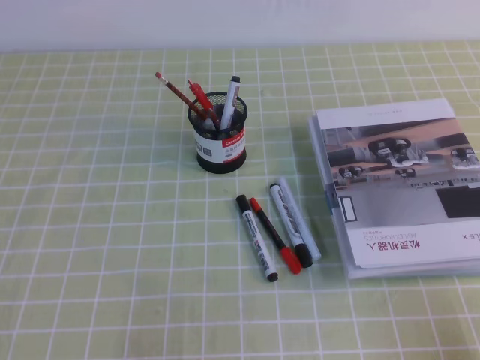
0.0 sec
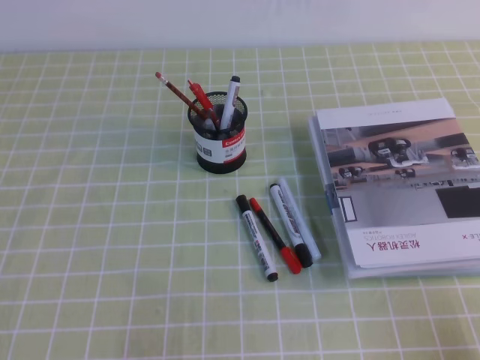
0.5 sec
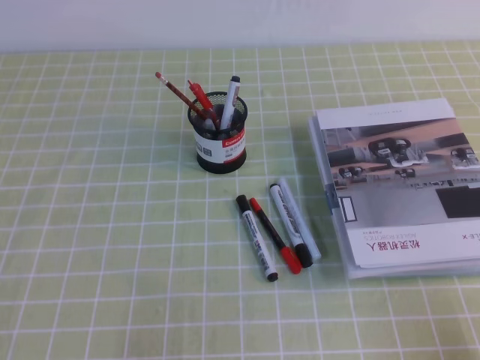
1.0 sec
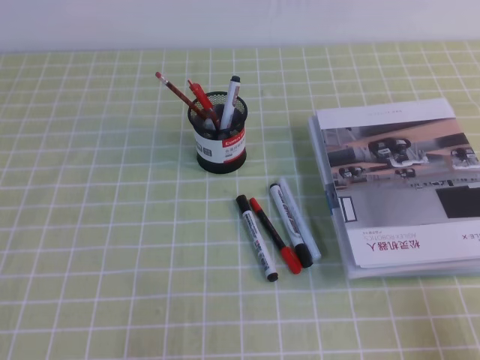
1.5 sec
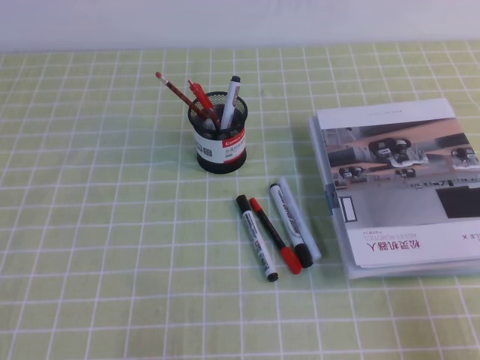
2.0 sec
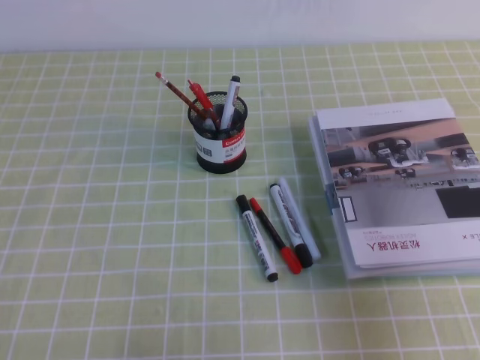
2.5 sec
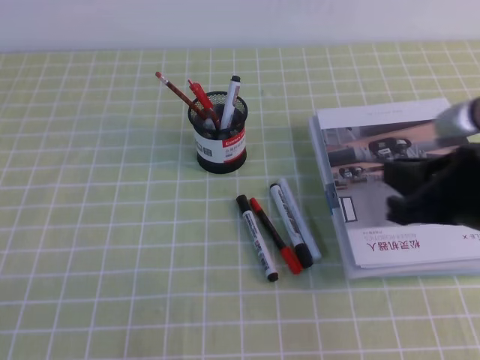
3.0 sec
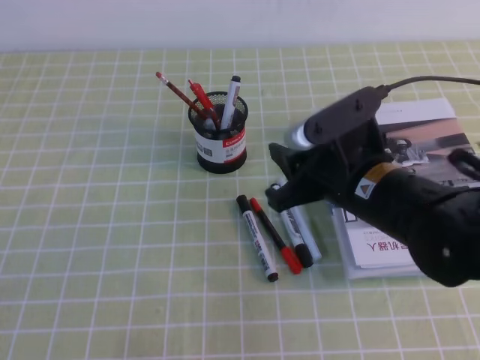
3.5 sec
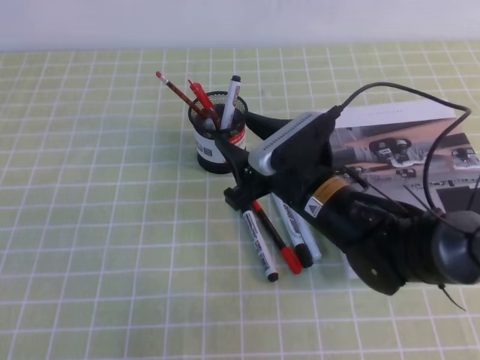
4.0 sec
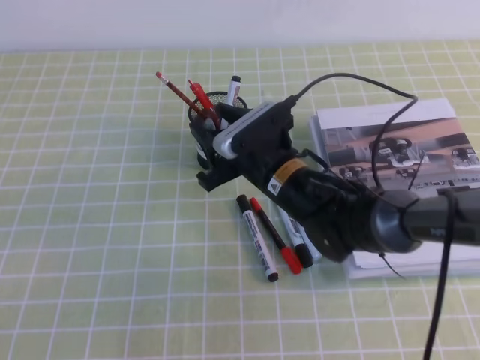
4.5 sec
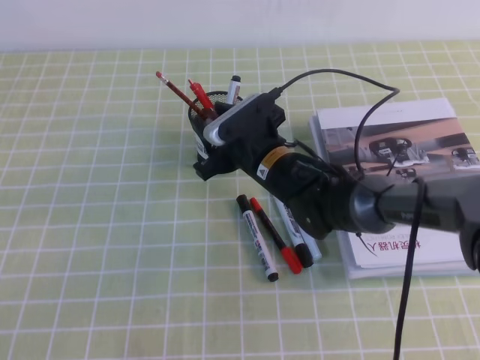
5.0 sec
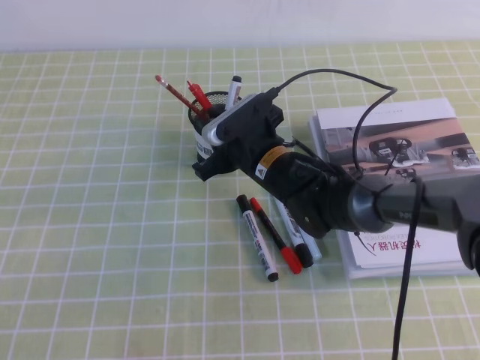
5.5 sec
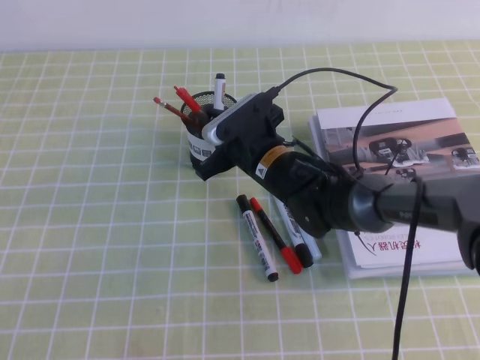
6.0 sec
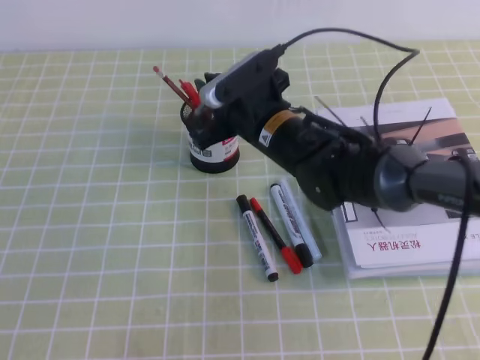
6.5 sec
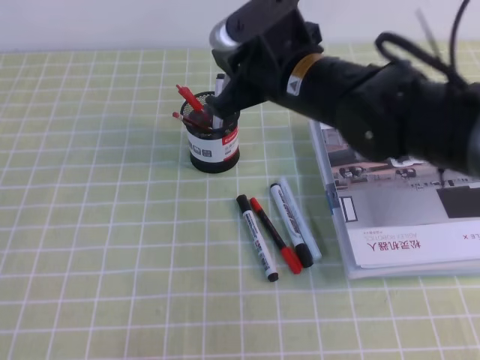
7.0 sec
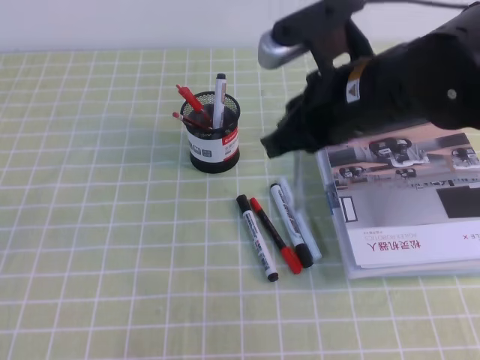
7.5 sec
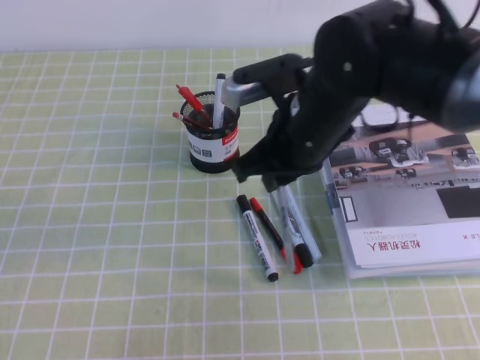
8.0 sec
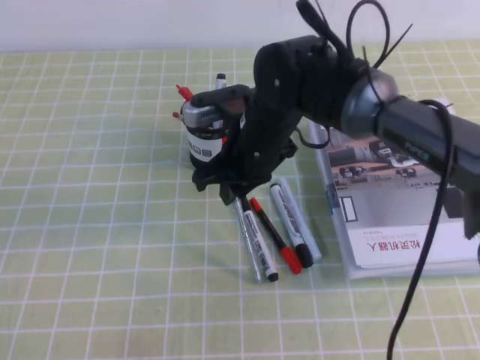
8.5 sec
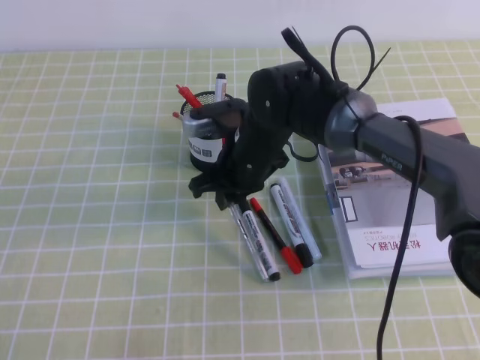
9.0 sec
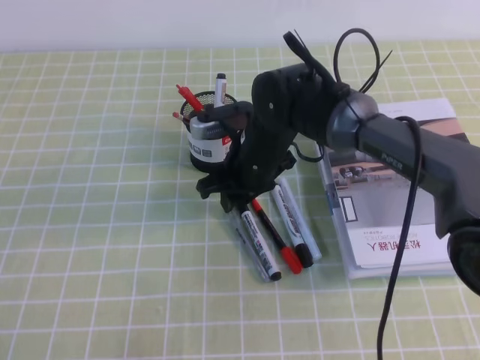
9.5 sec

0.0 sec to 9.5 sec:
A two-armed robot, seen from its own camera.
2.0 sec to 4.0 sec: The right gripper heads to the left and forward, covering some 35 cm, and opens.
4.0 sec to 5.5 sec: The right gripper goes about 10 cm forward and to the left, and closes.
5.5 sec to 7.5 sec: The right gripper goes about 20 cm upward, backward and to the right.
7.5 sec to 9.5 sec: The right gripper shifts about 20 cm downward, forward and to the left, and opens.

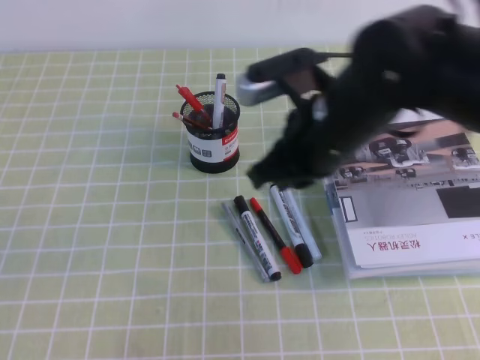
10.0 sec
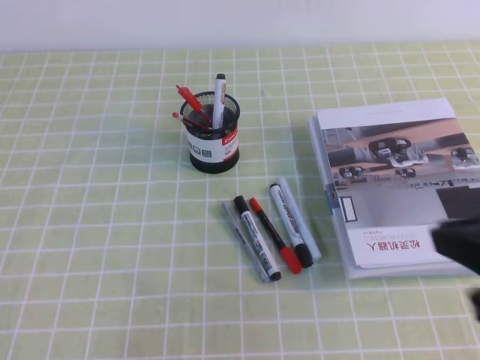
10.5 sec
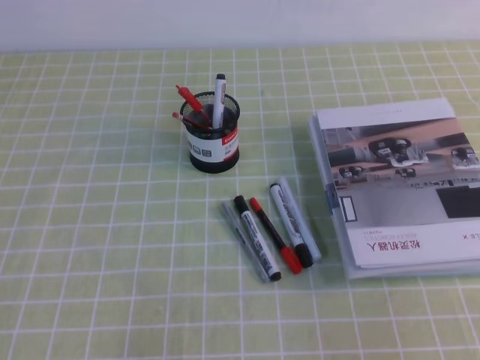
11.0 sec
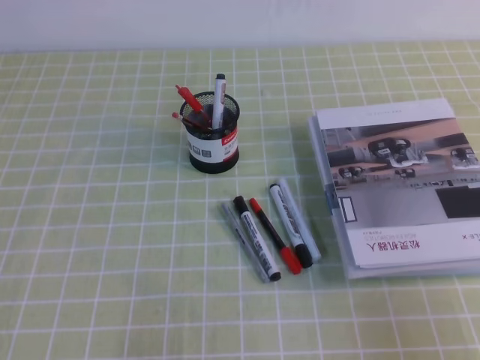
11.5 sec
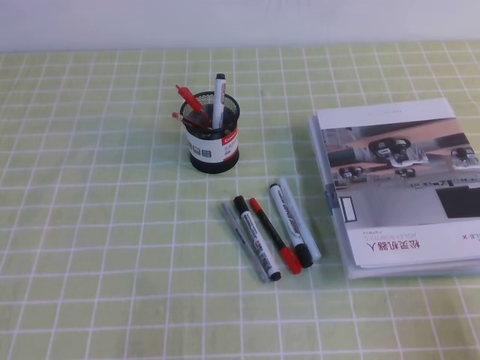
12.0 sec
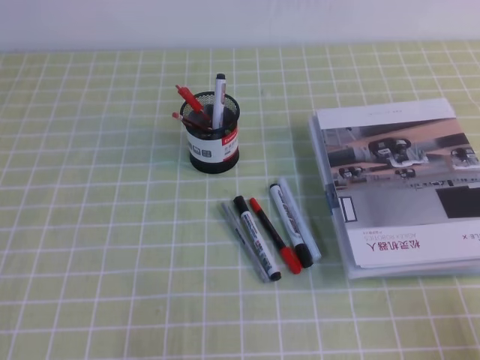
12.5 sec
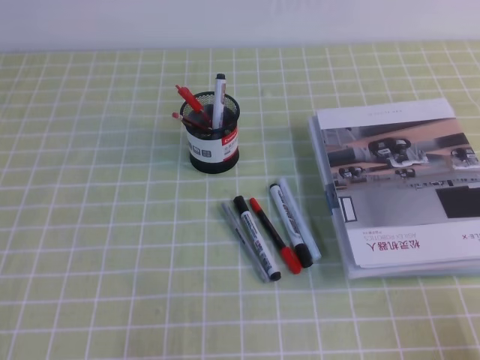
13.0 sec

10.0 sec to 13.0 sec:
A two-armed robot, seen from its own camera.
Step, 10.0 sec to 13.0 sec: Pick up the pen from the pen holder.
10.0 sec to 11.5 sec: The right gripper travels backward and to the right by roughly 30 cm.

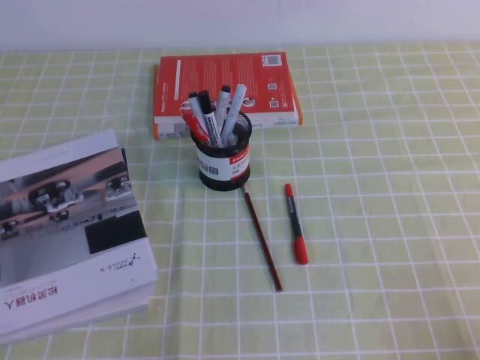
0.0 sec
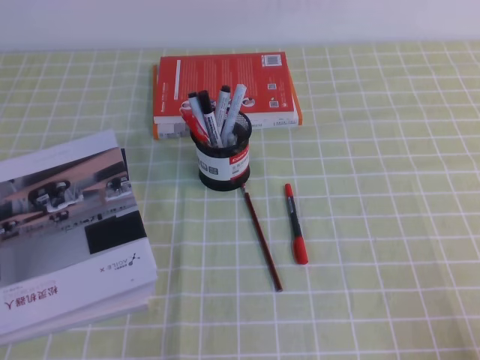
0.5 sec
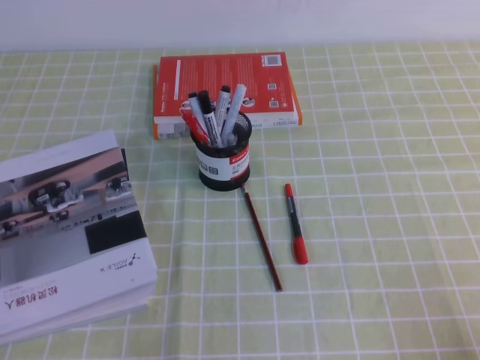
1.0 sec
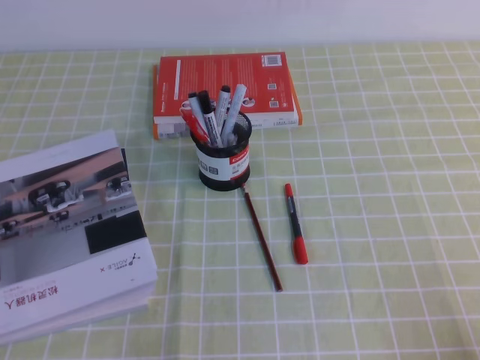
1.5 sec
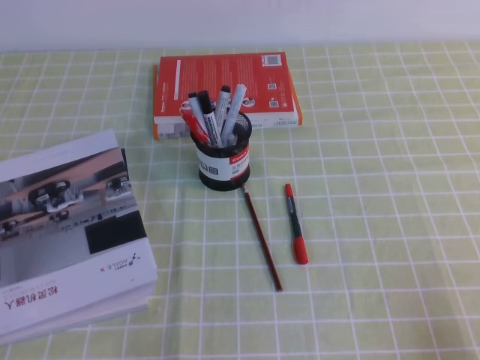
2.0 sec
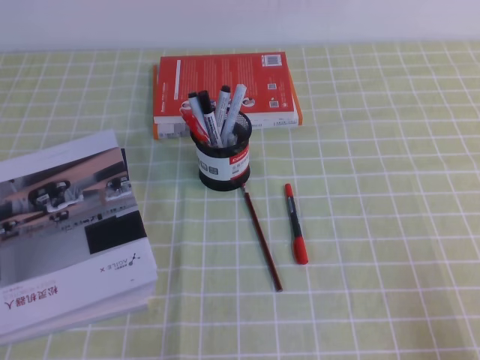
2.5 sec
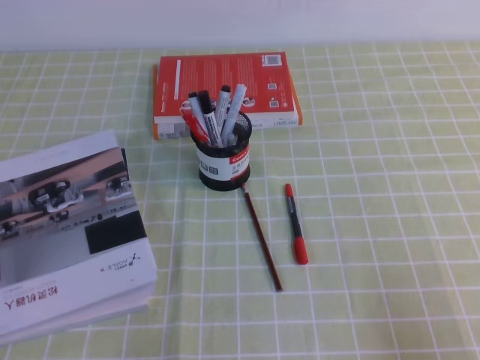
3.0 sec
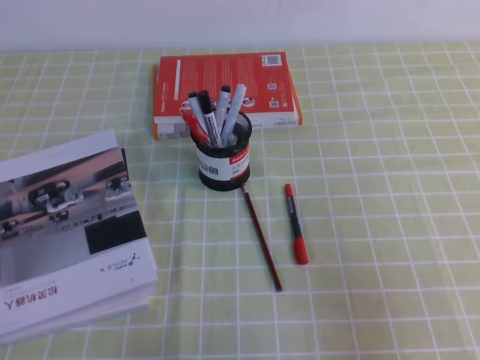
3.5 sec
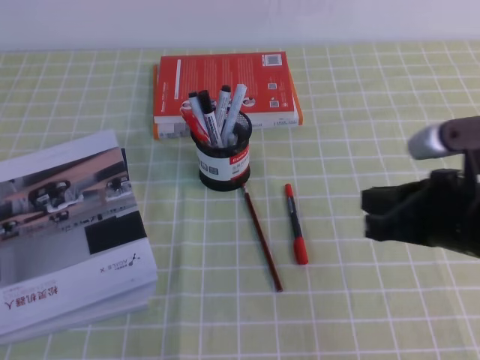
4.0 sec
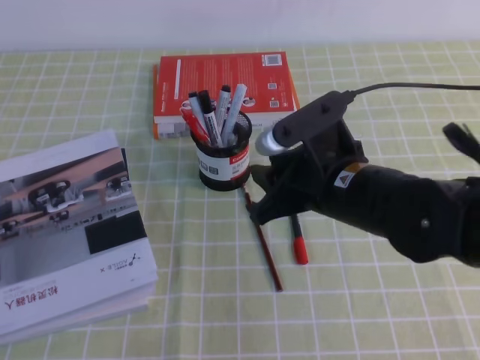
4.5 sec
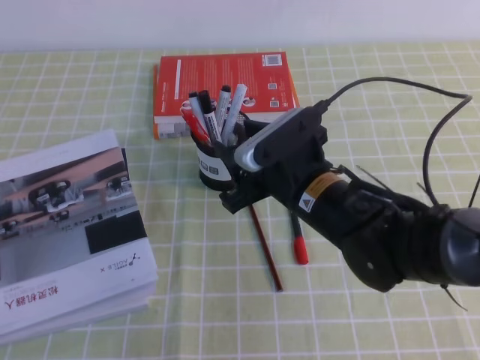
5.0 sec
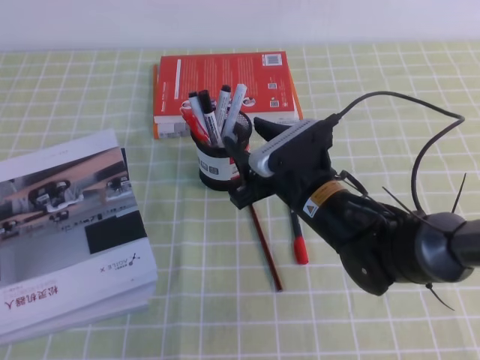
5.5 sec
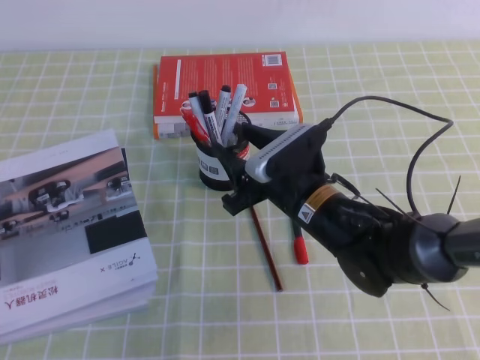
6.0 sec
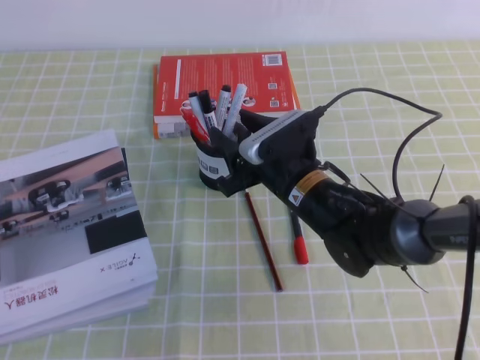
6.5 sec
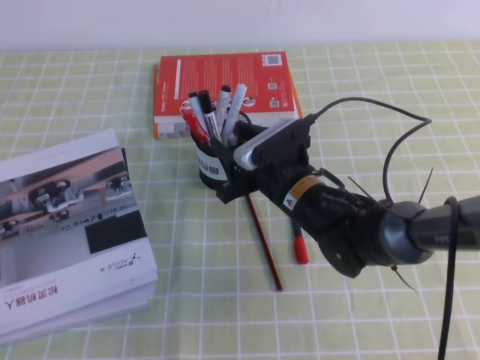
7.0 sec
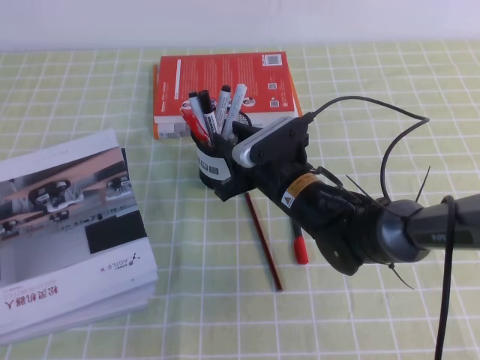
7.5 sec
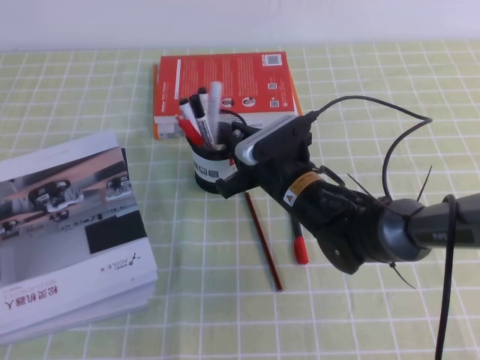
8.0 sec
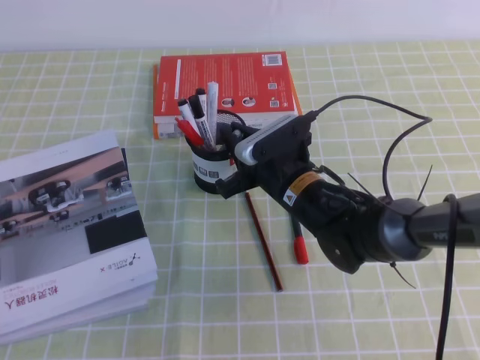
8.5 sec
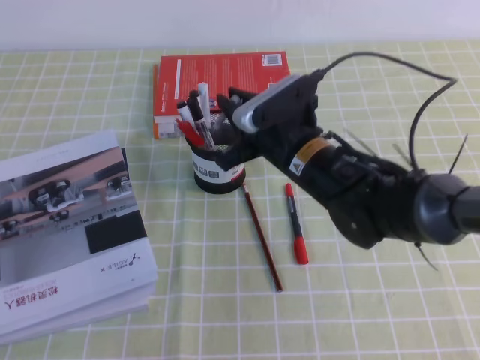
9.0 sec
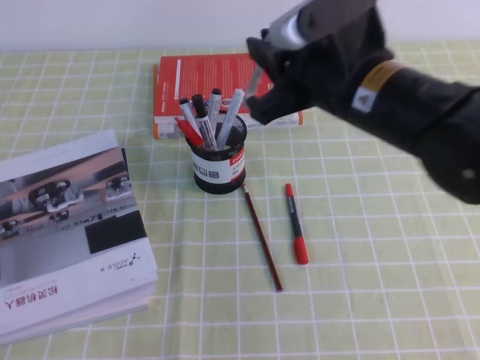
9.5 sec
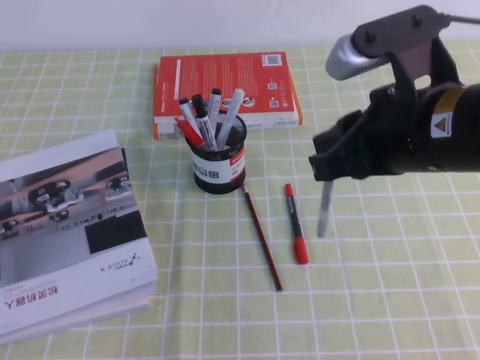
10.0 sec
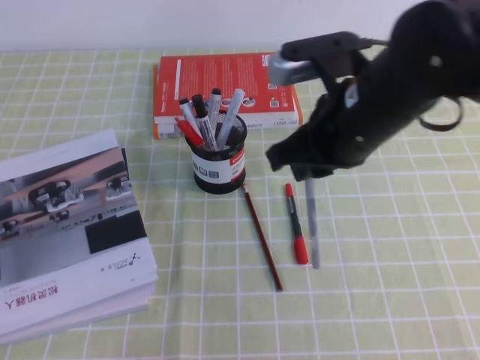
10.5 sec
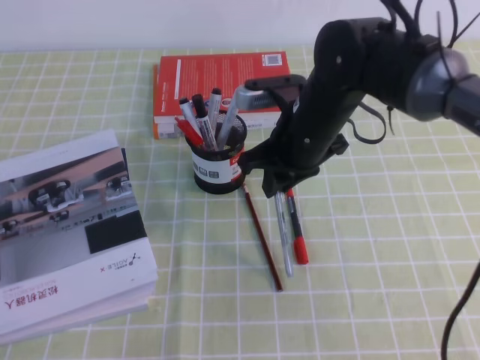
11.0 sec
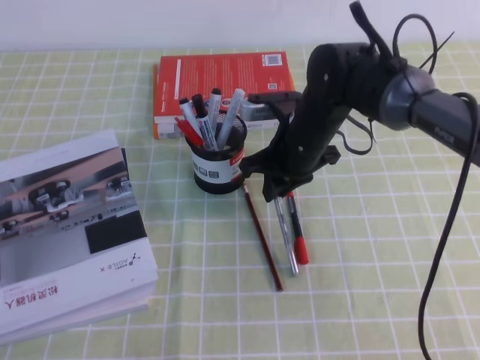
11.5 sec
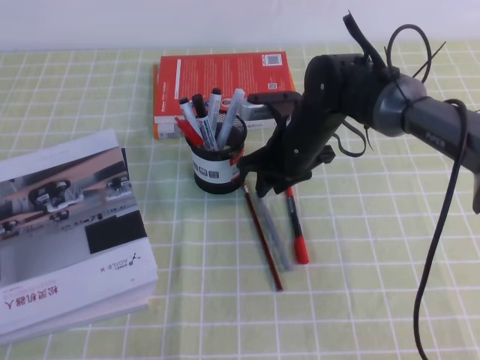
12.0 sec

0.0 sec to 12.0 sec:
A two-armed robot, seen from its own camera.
2.0 sec to 4.0 sec: The right gripper goes roughly 20 cm forward, to the left and upward.
4.0 sec to 6.0 sec: The right gripper is displaced to the left, forward and downward by roughly 20 cm, and opens.
6.0 sec to 8.0 sec: The right gripper closes.
8.0 sec to 10.0 sec: The right gripper heads upward, backward and to the right, covering roughly 25 cm.
10.0 sec to 12.0 sec: The right gripper travels forward, downward and to the left by roughly 25 cm.

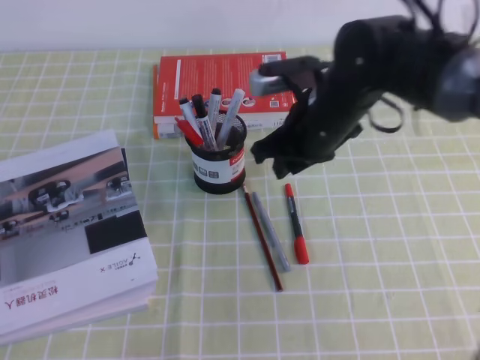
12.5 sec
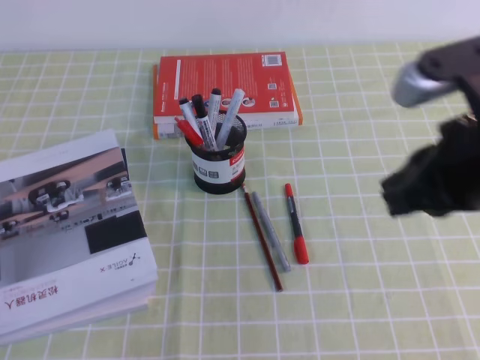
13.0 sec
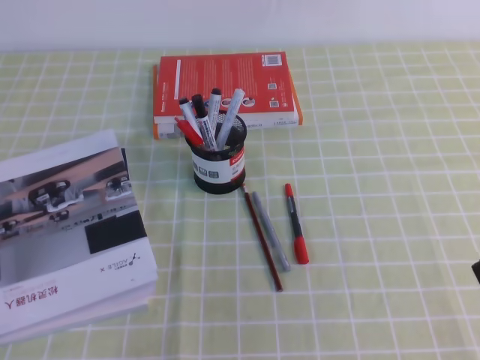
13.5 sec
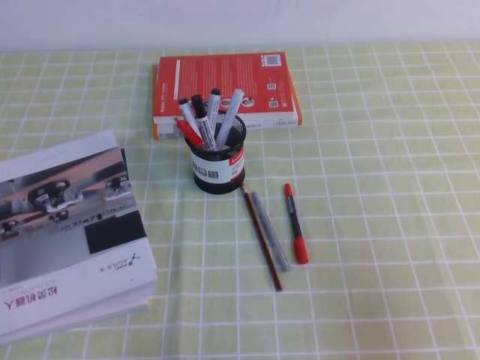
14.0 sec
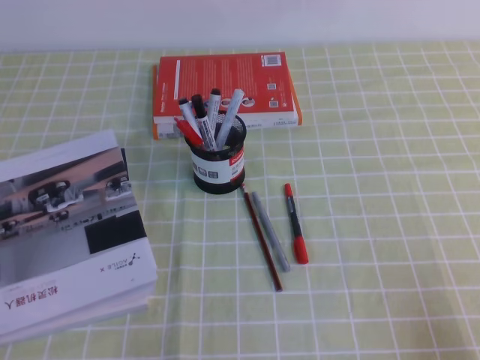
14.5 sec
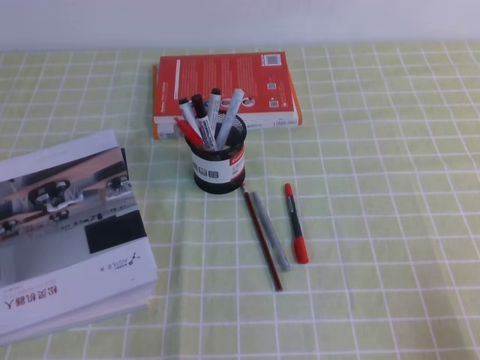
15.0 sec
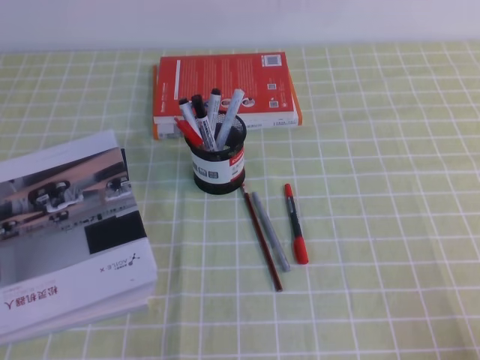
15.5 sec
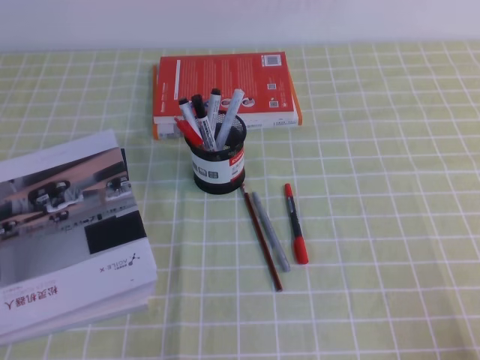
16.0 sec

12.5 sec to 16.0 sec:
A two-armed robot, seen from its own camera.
Step, 12.5 sec to 16.0 sec: Pick up the pen from the pen holder.
12.5 sec to 14.5 sec: The right gripper shifts roughly 35 cm backward and to the right, and closes its fingers.
